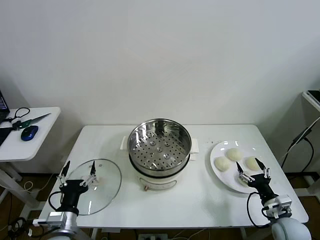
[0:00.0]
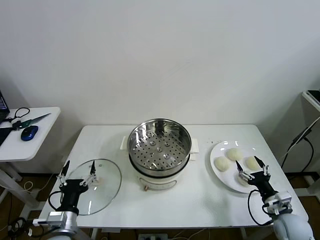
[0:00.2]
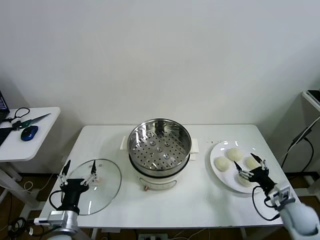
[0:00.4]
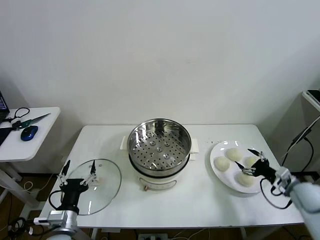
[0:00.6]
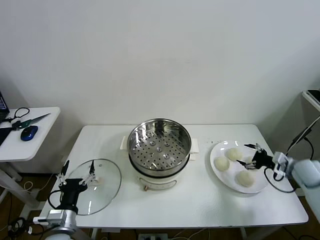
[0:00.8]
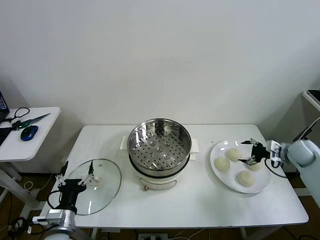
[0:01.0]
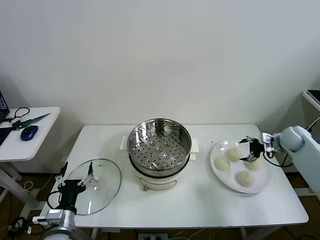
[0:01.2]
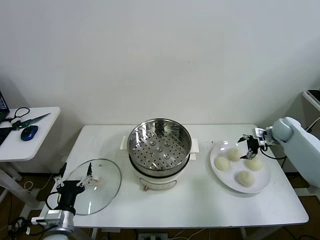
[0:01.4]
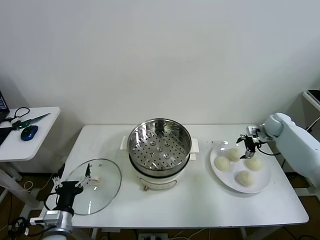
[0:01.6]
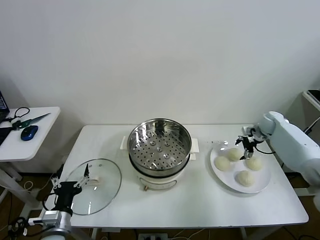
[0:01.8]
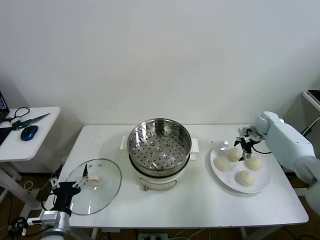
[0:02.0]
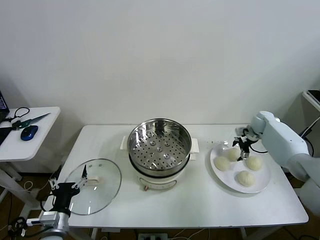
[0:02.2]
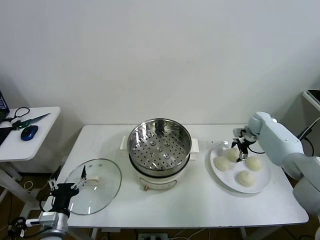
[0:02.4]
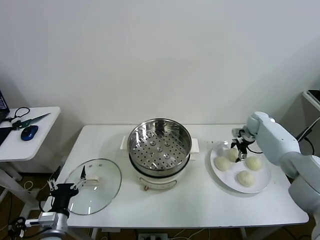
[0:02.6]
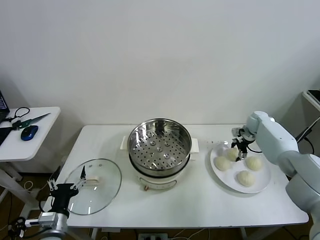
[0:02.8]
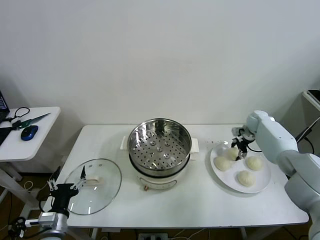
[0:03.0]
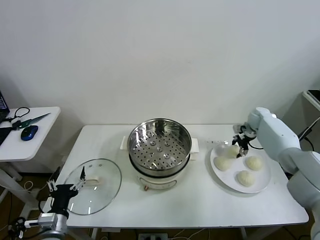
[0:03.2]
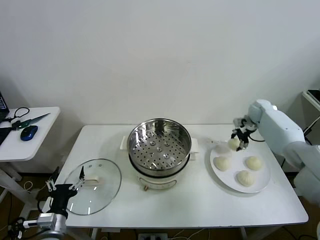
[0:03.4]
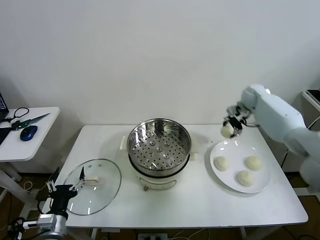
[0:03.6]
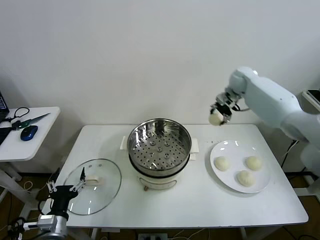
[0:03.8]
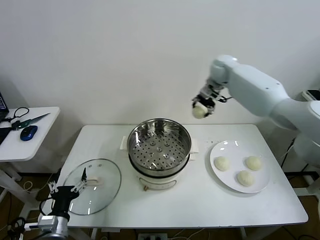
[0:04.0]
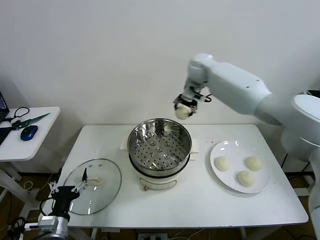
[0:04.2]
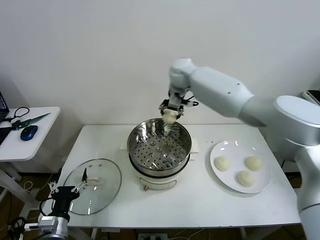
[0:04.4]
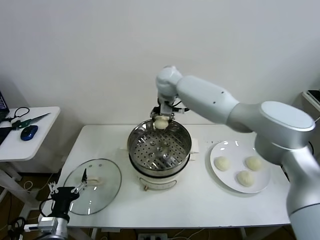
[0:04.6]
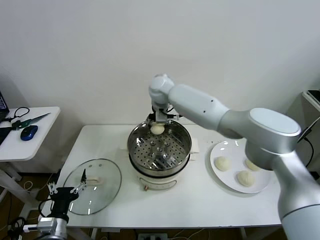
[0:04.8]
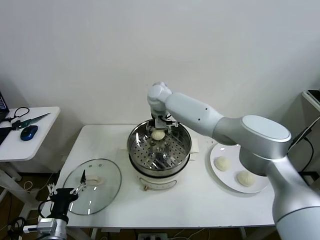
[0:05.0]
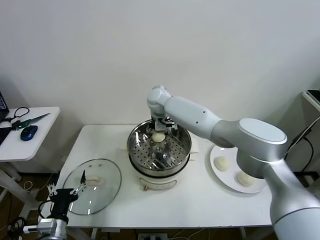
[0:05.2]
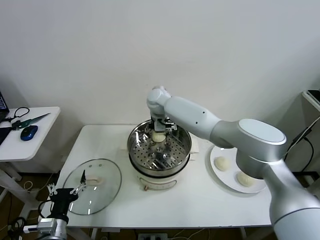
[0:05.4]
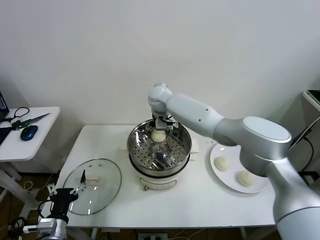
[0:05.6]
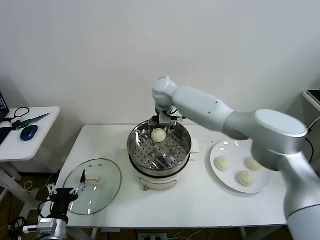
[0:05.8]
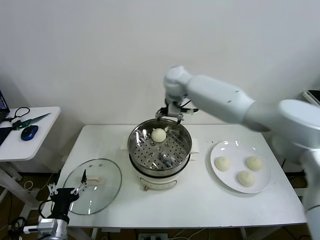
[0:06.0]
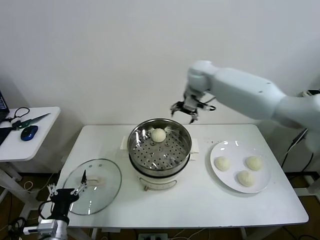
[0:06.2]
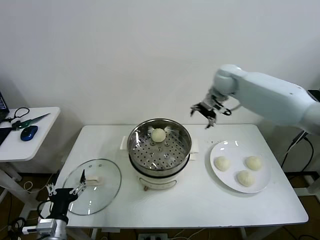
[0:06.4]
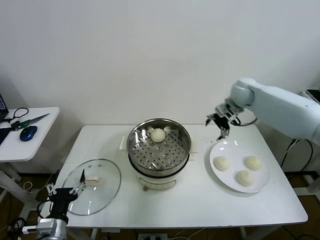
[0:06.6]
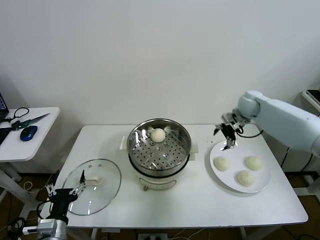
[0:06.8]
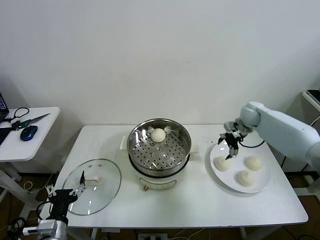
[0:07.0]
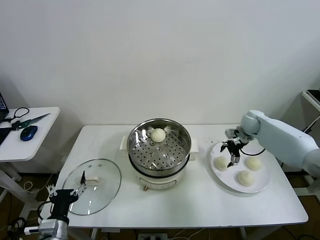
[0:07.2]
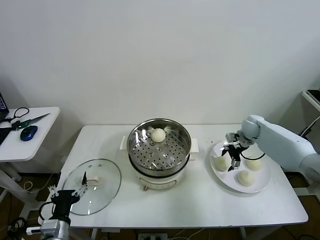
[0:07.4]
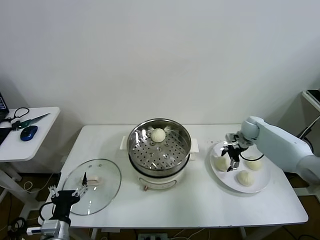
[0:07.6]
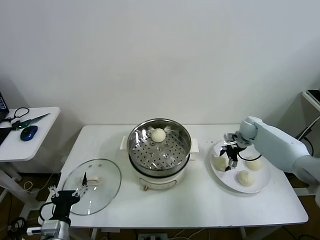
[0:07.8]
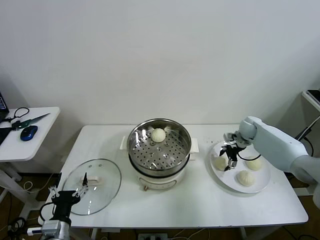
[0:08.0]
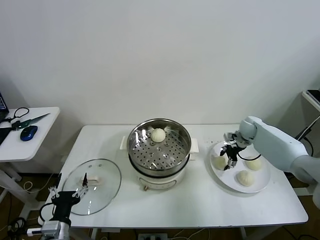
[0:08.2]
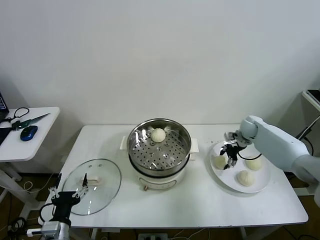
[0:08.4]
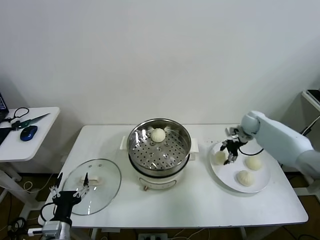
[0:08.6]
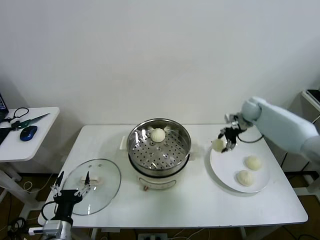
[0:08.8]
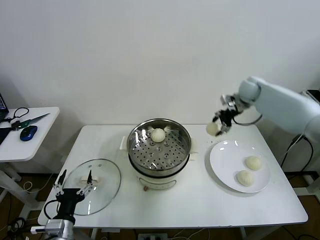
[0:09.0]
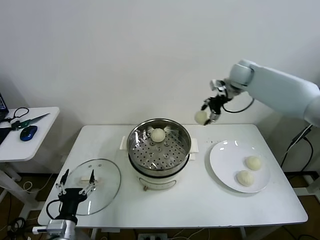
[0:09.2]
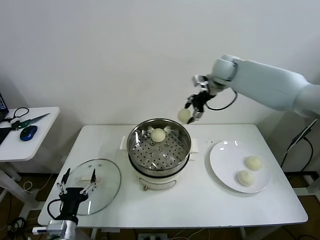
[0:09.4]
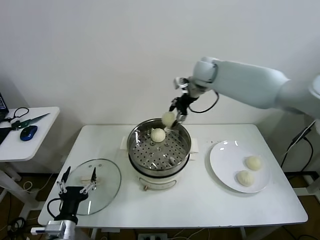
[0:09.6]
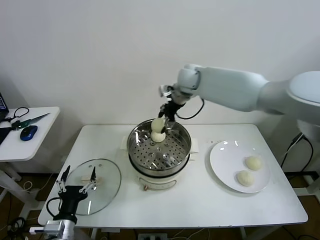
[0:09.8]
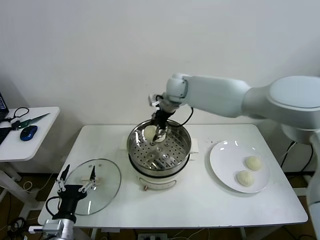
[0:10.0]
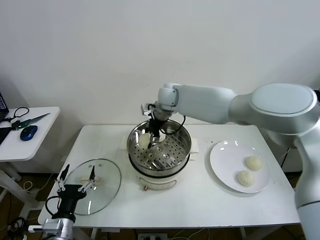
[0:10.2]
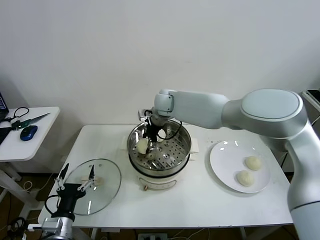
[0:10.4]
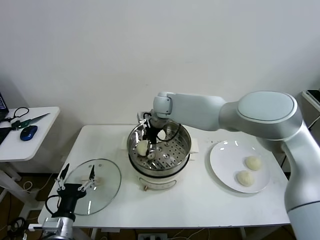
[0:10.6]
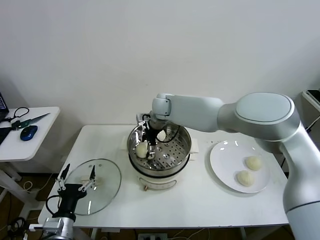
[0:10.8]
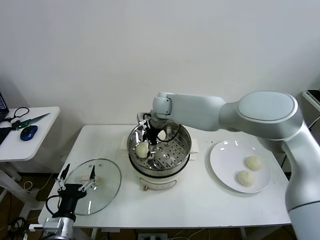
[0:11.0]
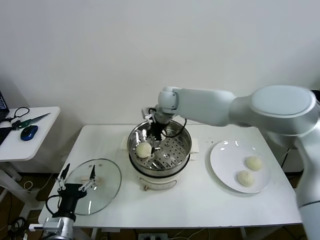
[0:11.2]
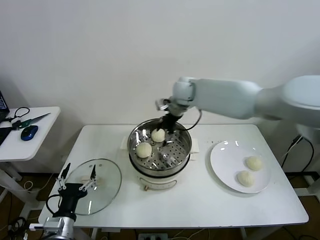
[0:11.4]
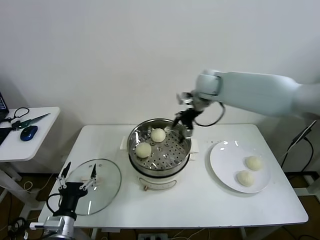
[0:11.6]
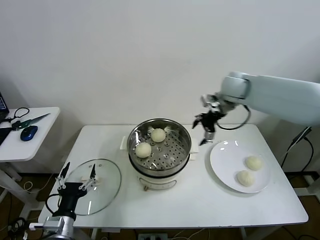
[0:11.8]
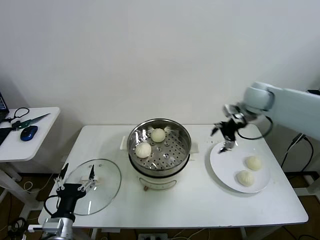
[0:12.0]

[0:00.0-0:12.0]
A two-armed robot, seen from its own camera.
Task of the whole recording: take steamed baozi put them in steamer then cover it.
Step, 0:00.0 to 0:02.8: Grasp the baozi in the plate with right gripper.
Step, 0:03.0 to 0:05.6: Place the baozi on the steamer with right gripper.
Step, 0:05.8 to 0:08.2: Grasp the baozi in the plate with right gripper.
Step, 0:08.4 to 0:11.0: Place the baozi on the steamer with right gripper.
0:01.6 to 0:03.0: The right gripper shifts by about 5 cm, and closes up.
0:03.0 to 0:04.4: The right gripper shifts some 40 cm to the left and upward.
0:04.4 to 0:06.0: The right gripper goes downward and returns, about 10 cm each way, and opens.
0:06.0 to 0:07.6: The right gripper goes roughly 40 cm to the right and downward.
0:07.6 to 0:09.0: The right gripper heads upward, covering roughly 20 cm, and closes its fingers.
0:09.0 to 0:10.4: The right gripper is displaced to the left by approximately 30 cm.
0:10.4 to 0:12.0: The right gripper moves to the right, roughly 30 cm, and opens up.

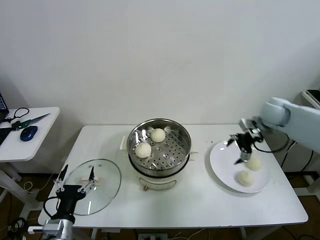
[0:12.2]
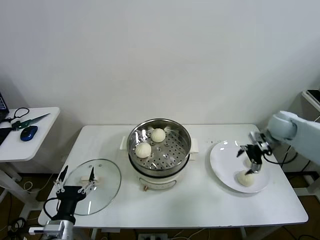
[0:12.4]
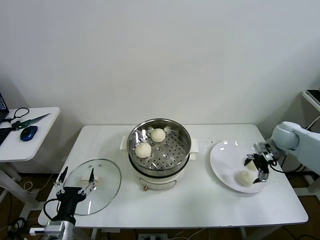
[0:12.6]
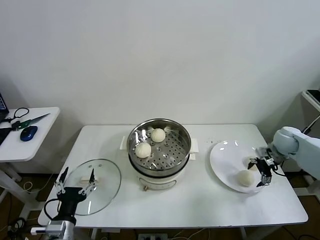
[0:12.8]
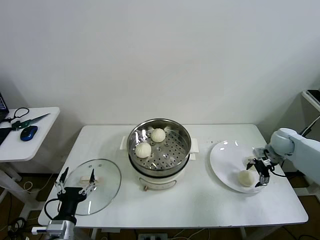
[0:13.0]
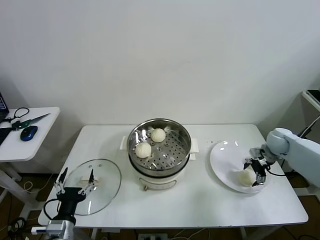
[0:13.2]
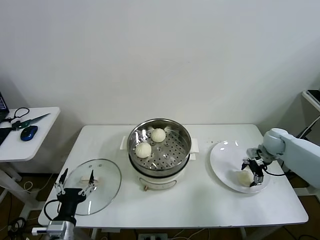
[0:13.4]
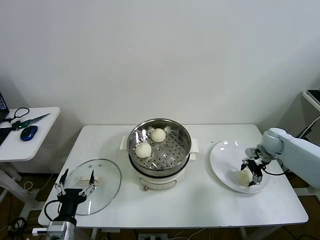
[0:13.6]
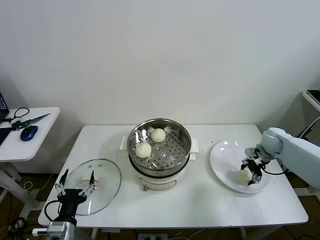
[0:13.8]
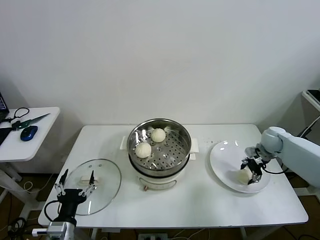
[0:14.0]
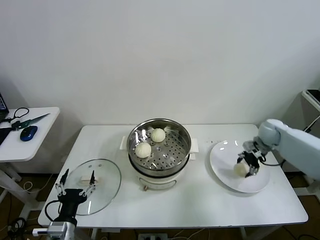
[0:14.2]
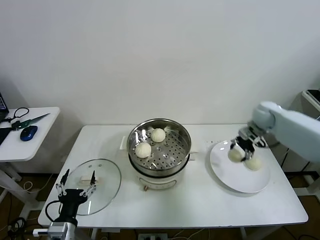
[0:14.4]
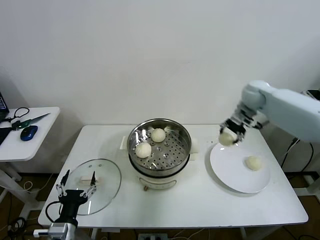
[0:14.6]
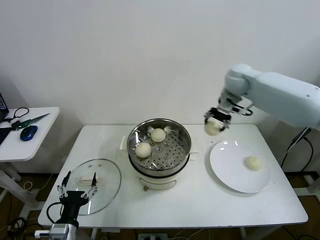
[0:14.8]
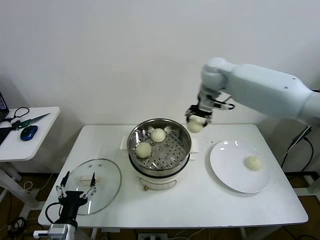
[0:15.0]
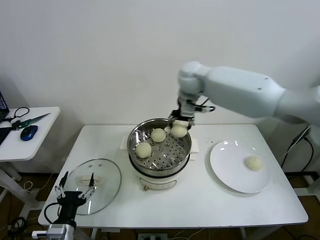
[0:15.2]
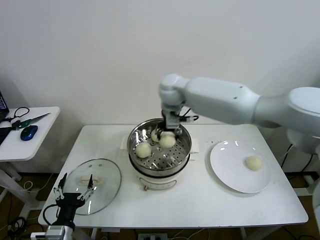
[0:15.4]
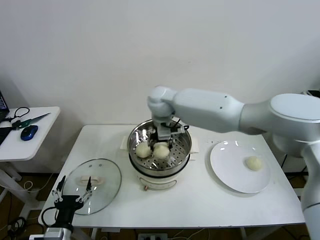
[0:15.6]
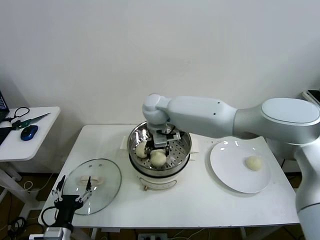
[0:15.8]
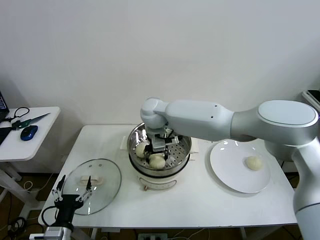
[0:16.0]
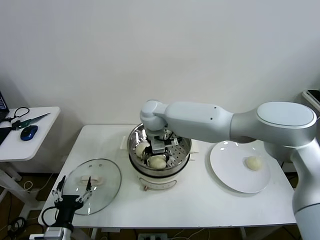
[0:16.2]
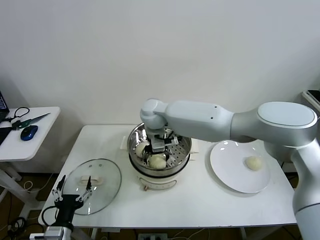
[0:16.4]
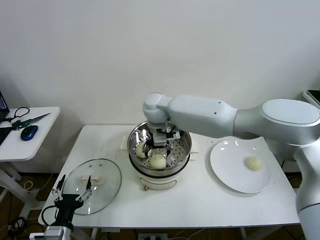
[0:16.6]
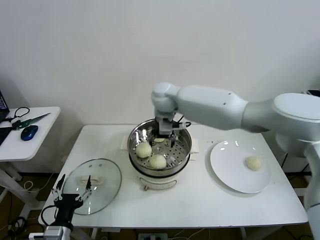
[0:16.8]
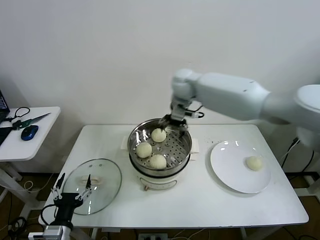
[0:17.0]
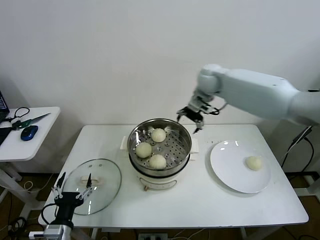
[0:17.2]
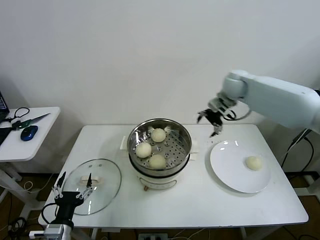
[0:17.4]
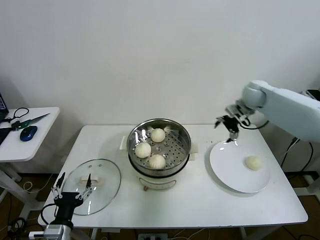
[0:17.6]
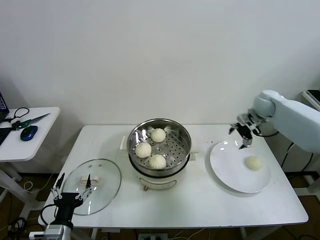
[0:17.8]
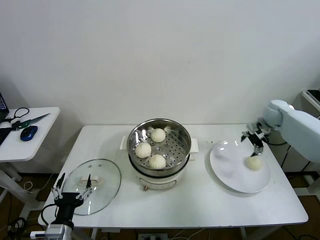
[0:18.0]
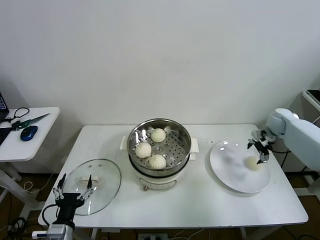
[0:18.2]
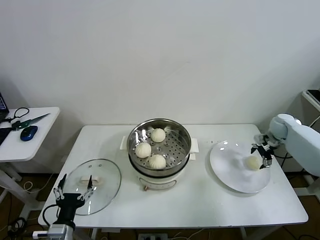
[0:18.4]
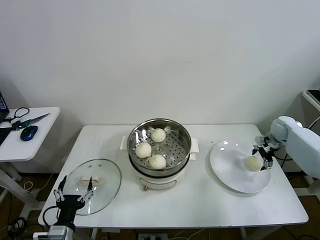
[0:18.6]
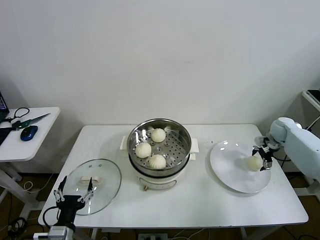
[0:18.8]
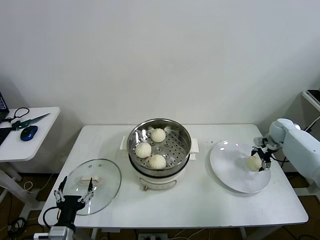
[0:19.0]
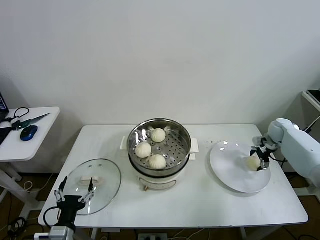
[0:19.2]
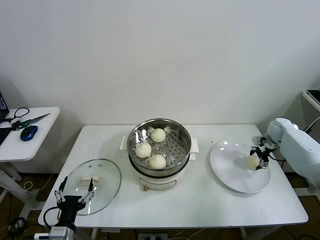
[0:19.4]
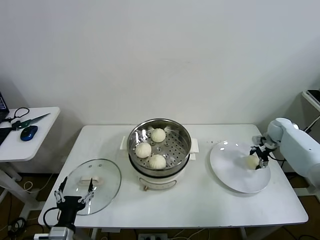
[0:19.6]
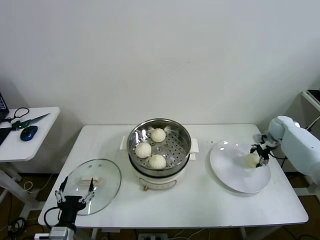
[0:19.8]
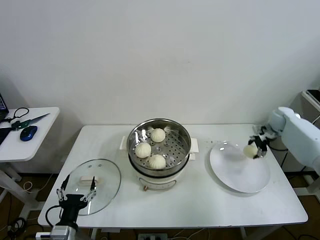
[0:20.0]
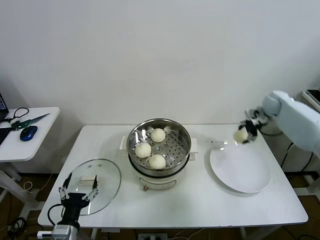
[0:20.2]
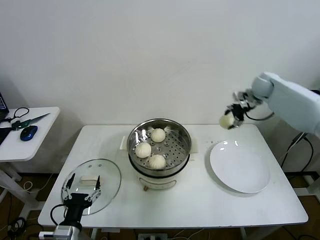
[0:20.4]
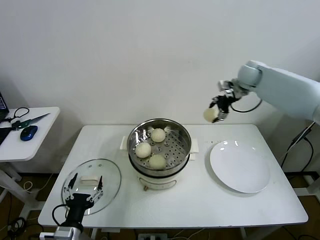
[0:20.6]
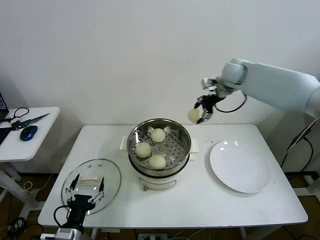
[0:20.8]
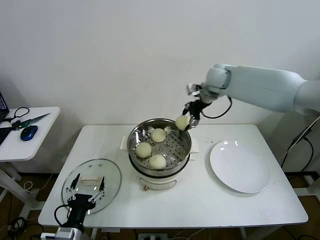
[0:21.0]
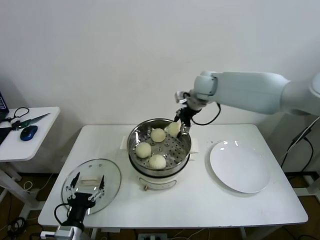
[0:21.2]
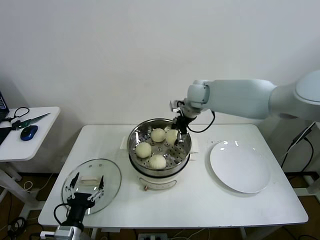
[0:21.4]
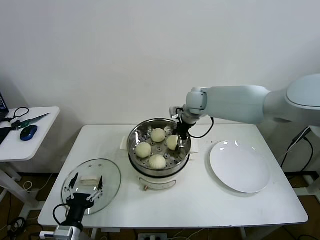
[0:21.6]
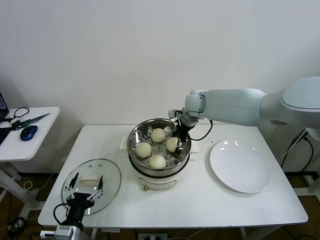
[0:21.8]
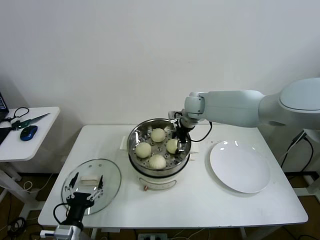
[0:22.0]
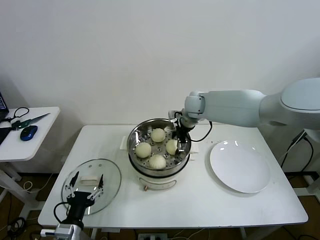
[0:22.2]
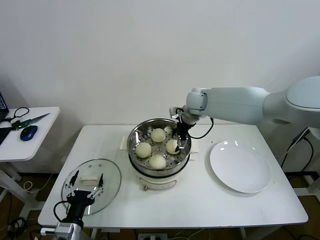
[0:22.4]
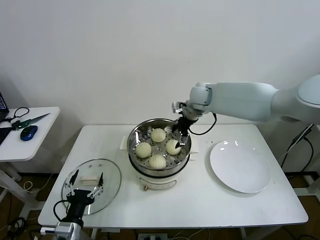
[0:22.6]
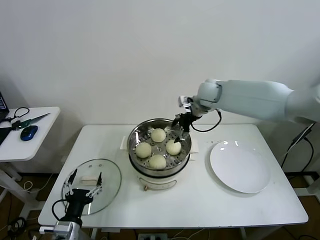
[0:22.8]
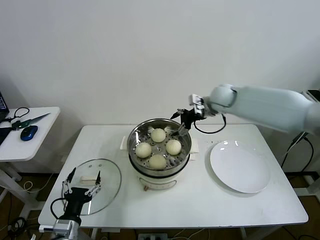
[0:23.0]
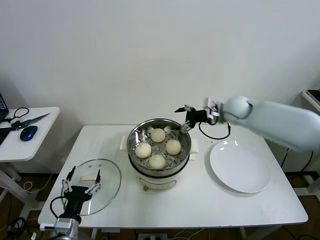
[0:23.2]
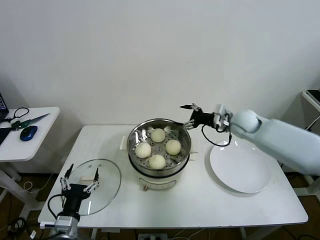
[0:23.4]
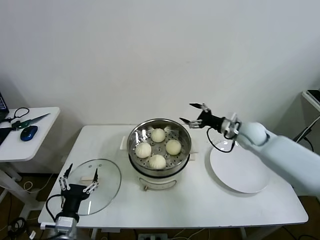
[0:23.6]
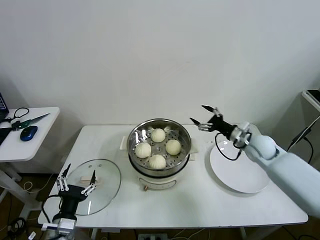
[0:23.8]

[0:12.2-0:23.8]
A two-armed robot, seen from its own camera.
Task of the whole recording: take steamed baozi put them in steamer then cover it.
Step, 0:12.2 to 0:13.8: Grasp the baozi in the plate with right gripper.
Step, 0:14.0 to 0:16.4: Place the baozi on the steamer with right gripper.
Step, 0:16.6 to 0:19.6: Grasp the baozi in the plate with right gripper.
Step, 0:19.8 to 0:22.2: Place the baozi on the steamer with right gripper.
0:12.2 to 0:13.6: The right gripper goes roughly 15 cm downward, and closes its fingers.
0:13.6 to 0:15.0: The right gripper goes roughly 40 cm to the left and upward, and closes up.
0:15.0 to 0:16.6: The right gripper travels to the left and downward by approximately 20 cm, and opens its fingers.
0:16.6 to 0:18.0: The right gripper moves to the right, some 50 cm.
0:18.0 to 0:19.4: The right gripper heads downward, covering roughly 10 cm, and closes.
0:19.4 to 0:21.0: The right gripper heads to the left and upward, covering roughly 40 cm.
0:21.0 to 0:22.4: The right gripper heads downward and to the left, covering roughly 10 cm, and opens its fingers.
0:22.4 to 0:23.8: The right gripper is displaced to the right, downward and backward by some 25 cm.
